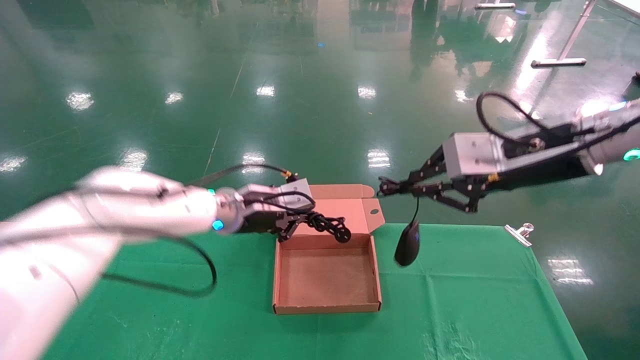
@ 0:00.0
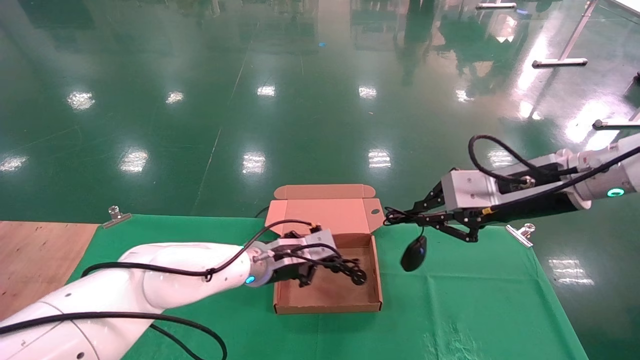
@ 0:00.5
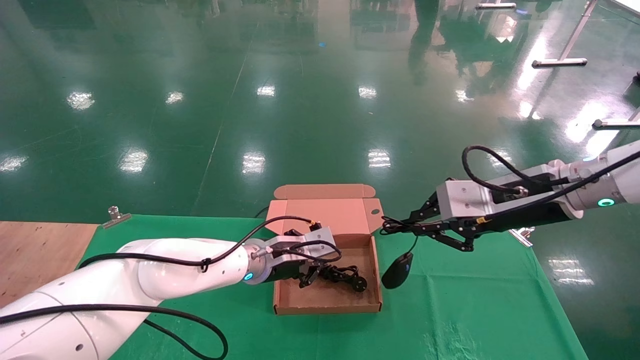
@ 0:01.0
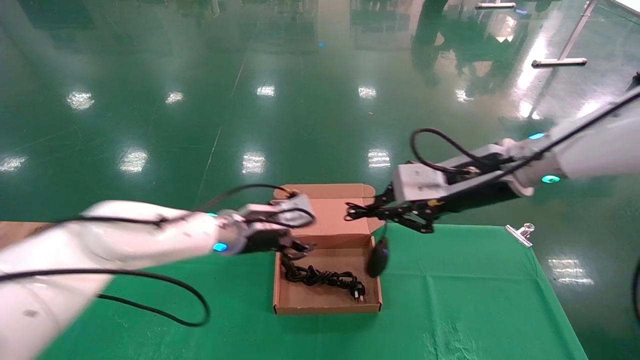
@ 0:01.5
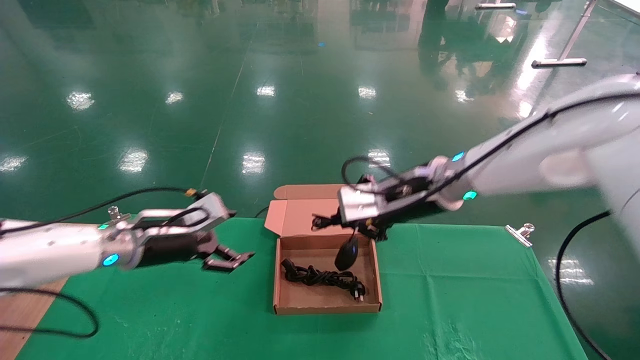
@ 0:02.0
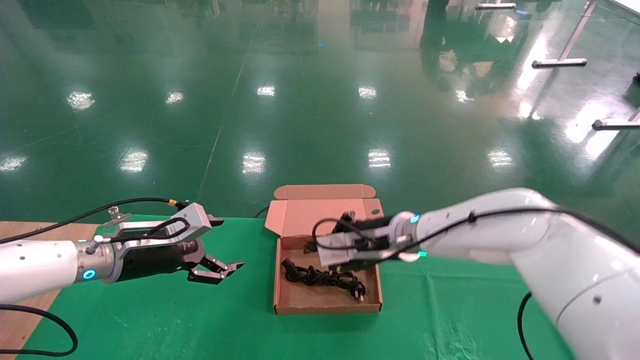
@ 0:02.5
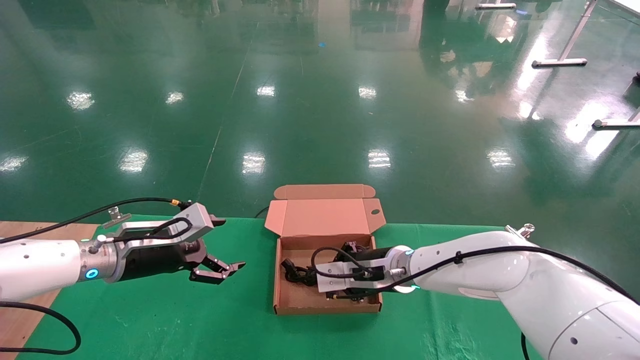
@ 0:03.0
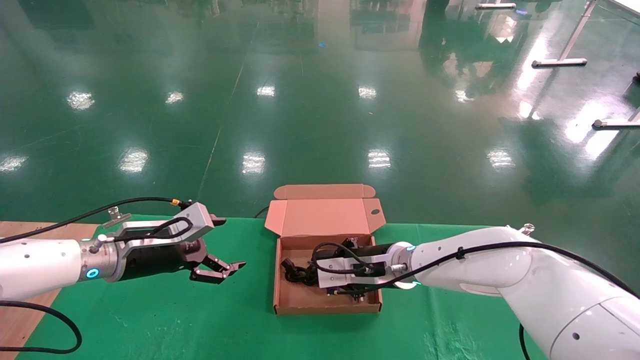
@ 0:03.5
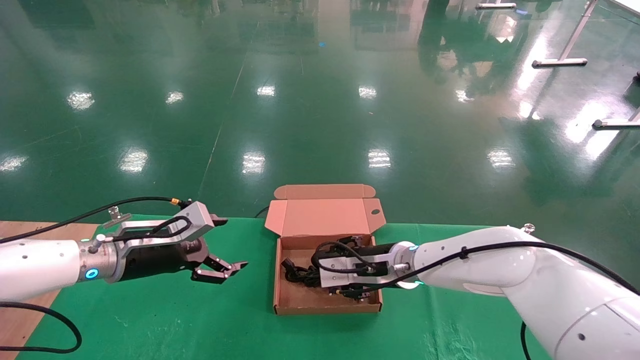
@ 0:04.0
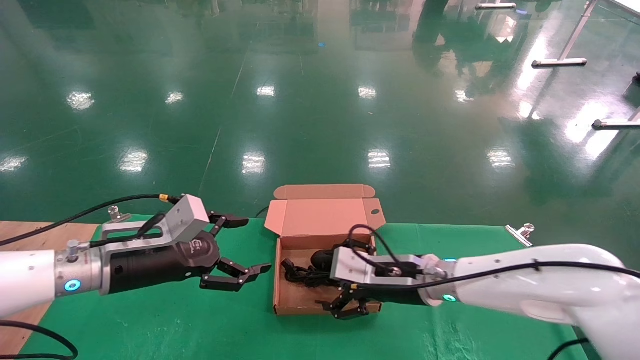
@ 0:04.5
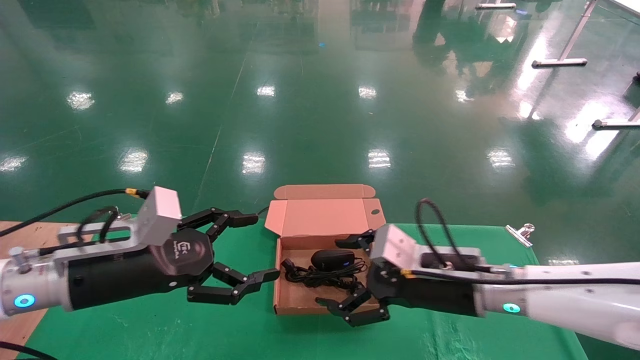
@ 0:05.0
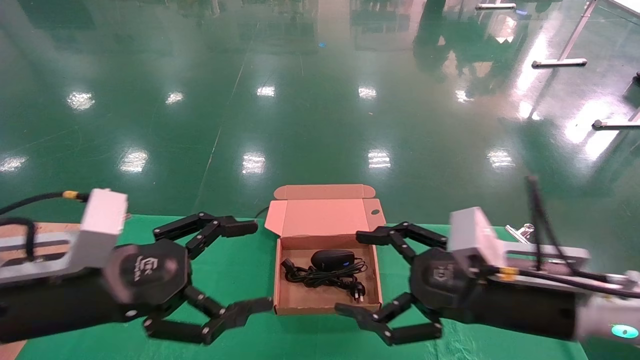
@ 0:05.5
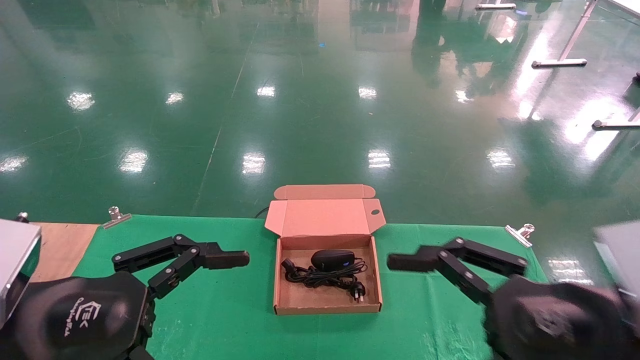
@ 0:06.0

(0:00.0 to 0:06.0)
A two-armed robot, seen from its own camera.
Step, 0:00.0 - 0:02.5: Place the mouse and power cord into the box.
0:00.0 - 0:02.0: The left gripper travels to the left by approximately 15 cm, and opens its fingers; the right gripper shifts about 15 cm to the left, forward and downward.
0:02.0 - 0:04.0: The right gripper shifts some 15 cm downward, and opens up.
0:04.0 - 0:06.0: The right gripper moves backward and to the right, approximately 30 cm, and opens up. The left gripper shifts roughly 20 cm backward.
